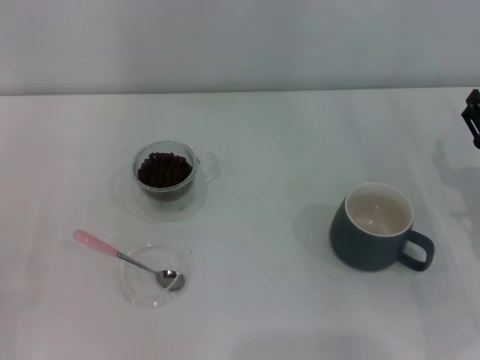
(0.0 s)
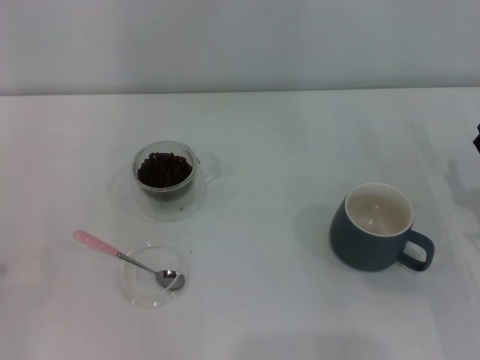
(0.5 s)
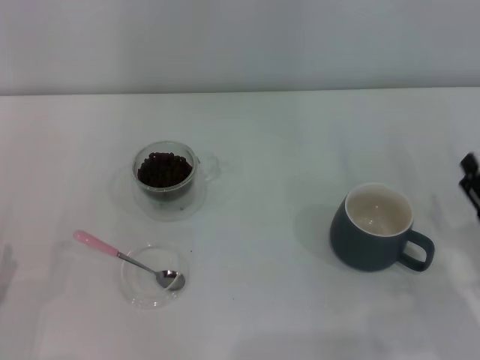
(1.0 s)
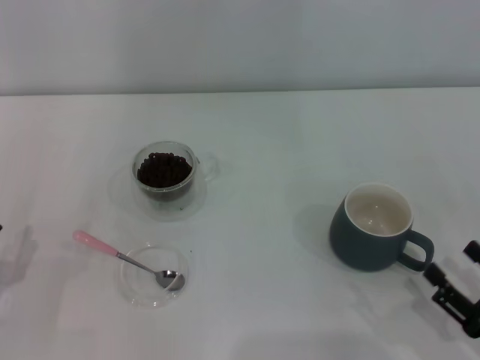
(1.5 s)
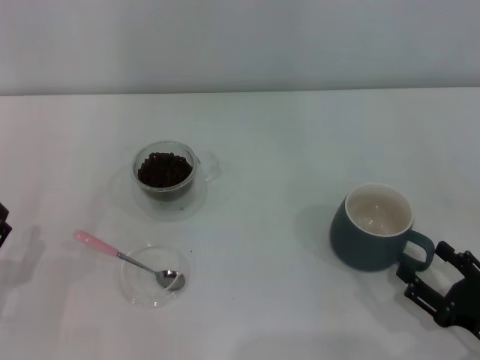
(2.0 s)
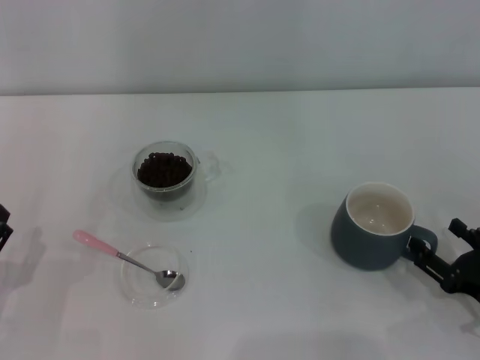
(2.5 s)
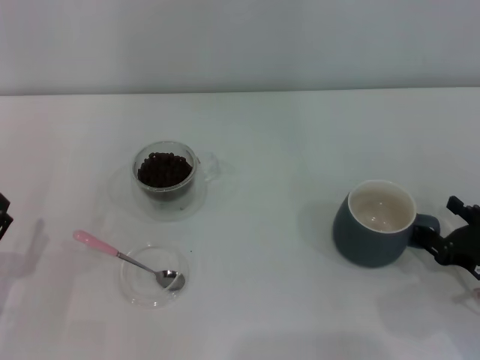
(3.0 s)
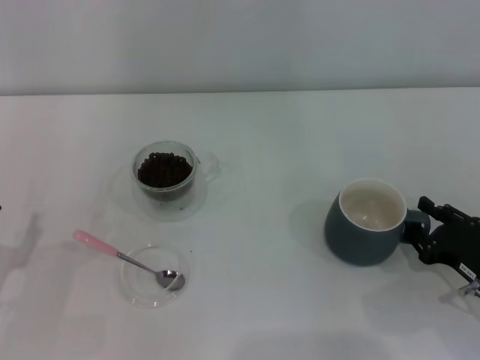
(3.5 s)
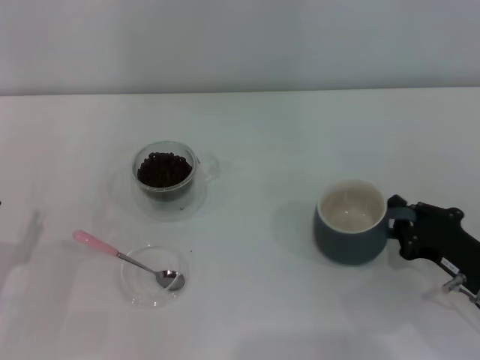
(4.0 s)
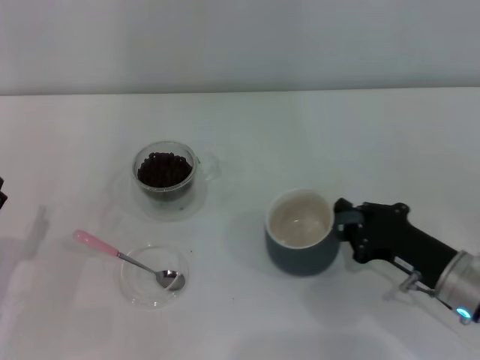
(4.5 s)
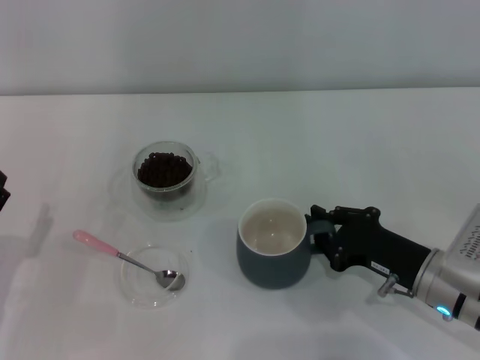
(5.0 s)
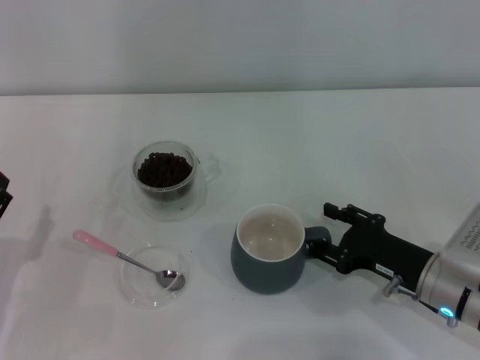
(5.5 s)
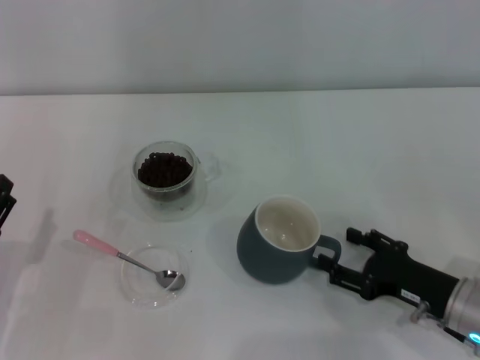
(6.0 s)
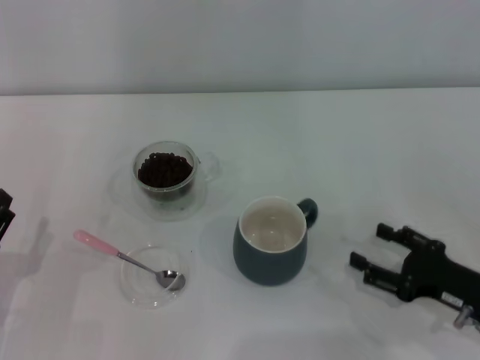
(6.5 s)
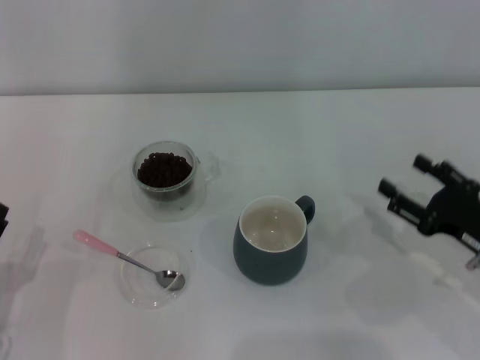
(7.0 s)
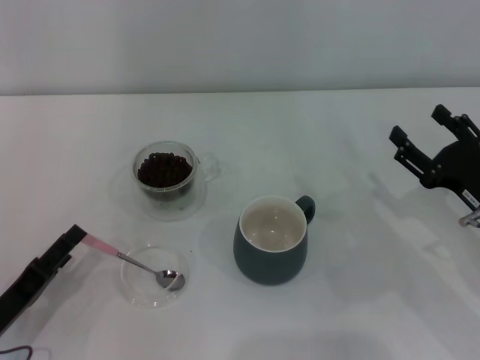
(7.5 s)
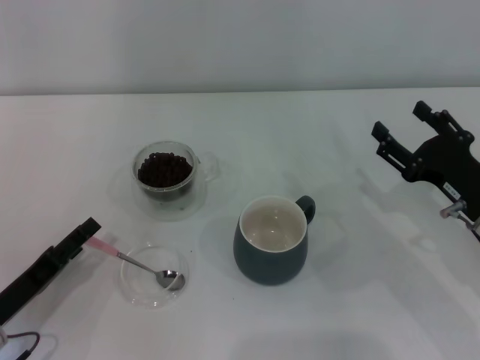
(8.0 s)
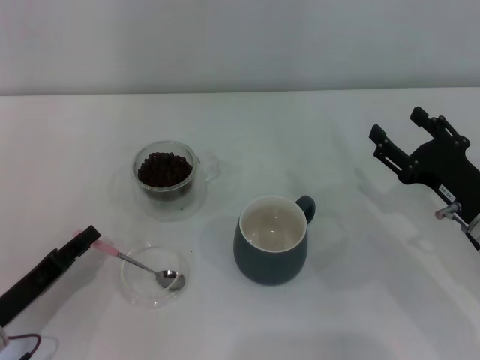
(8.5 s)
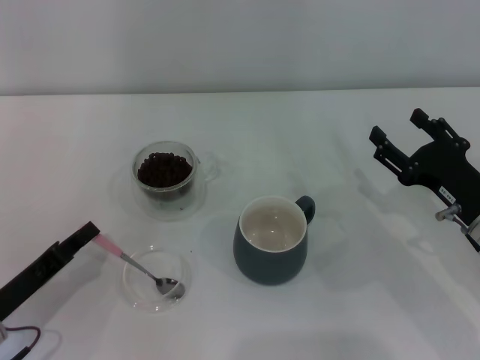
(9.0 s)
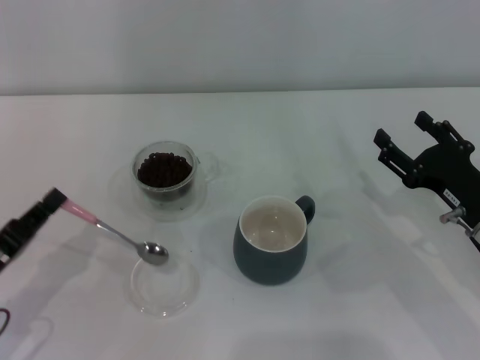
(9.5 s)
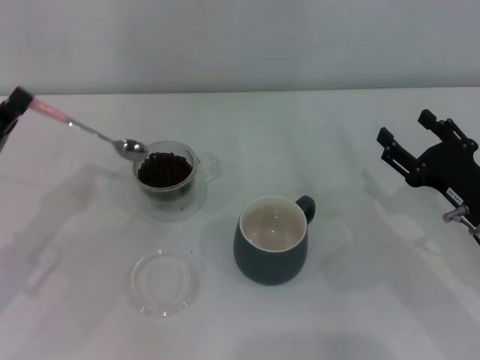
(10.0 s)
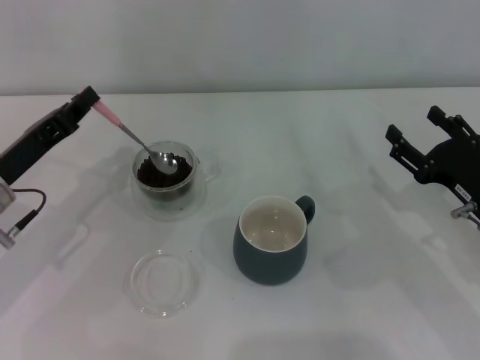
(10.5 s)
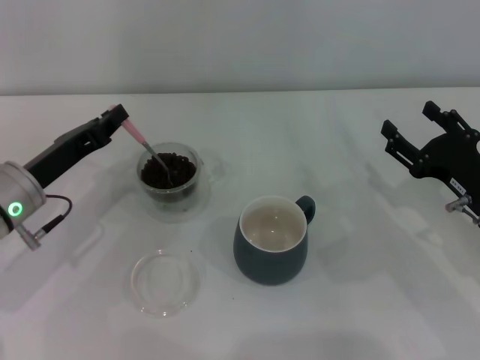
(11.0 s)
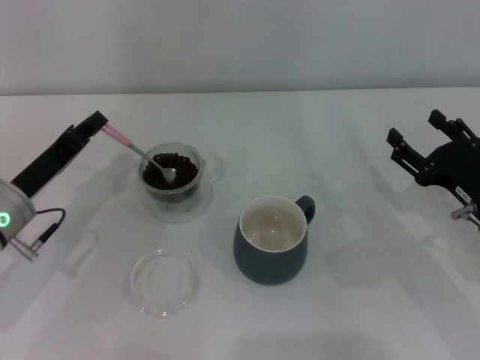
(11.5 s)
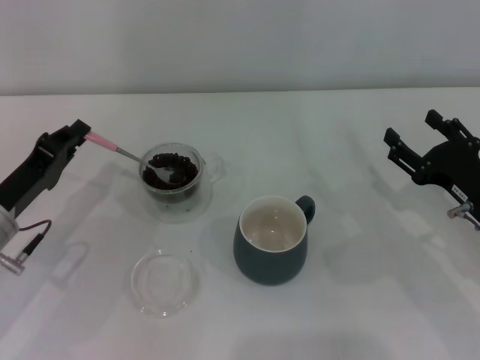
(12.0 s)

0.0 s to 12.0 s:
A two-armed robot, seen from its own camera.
Task of the whole recording: Use a pink spoon to take out the coffee beans from the glass and pour them into the gray cup.
Step, 0.0 to 6.0 s: Move the cup to the center of view with the left gripper.
Step, 6.5 to 9.5 s: Pick up the spoon with the right gripper.
0.0 to 2.0 s: The right gripper travels backward by about 15 cm.
2.0 to 4.0 s: The right gripper goes approximately 10 cm forward, and closes its fingers.
4.0 to 6.0 s: The right gripper opens.
6.0 to 8.0 s: The right gripper shifts by about 5 cm.
8.0 to 10.0 s: The left gripper shifts about 10 cm upward and forward, and closes its fingers.

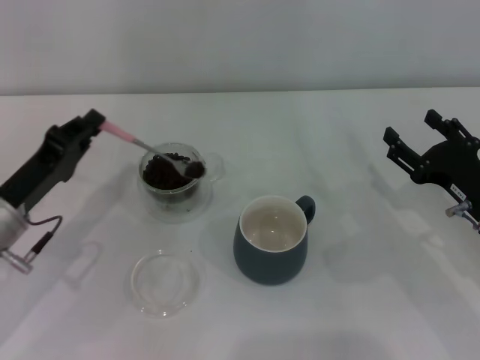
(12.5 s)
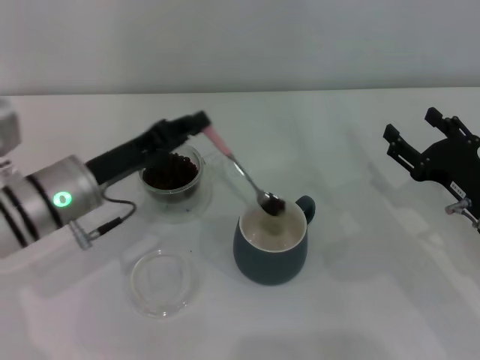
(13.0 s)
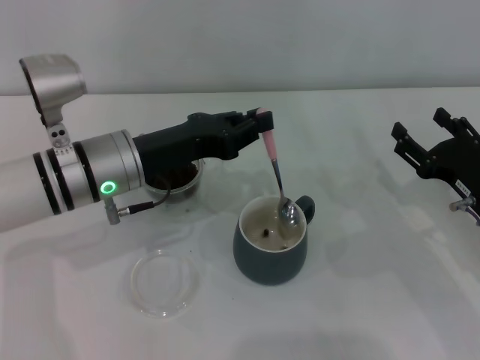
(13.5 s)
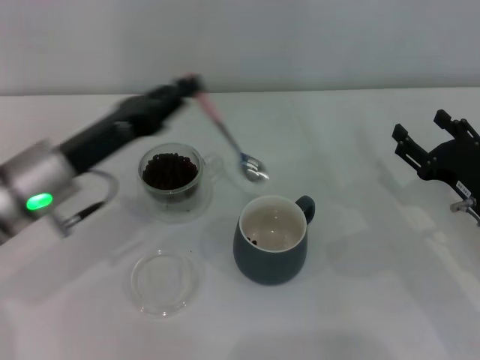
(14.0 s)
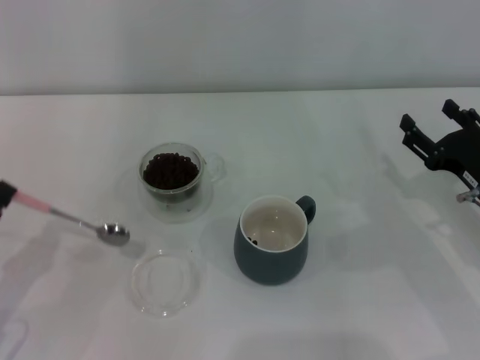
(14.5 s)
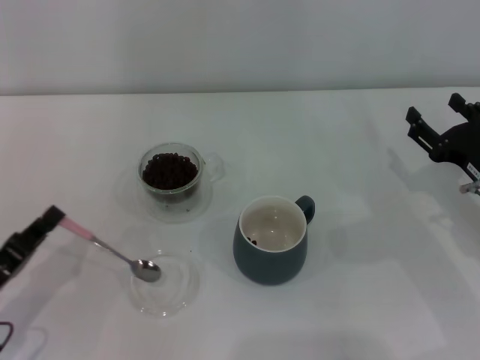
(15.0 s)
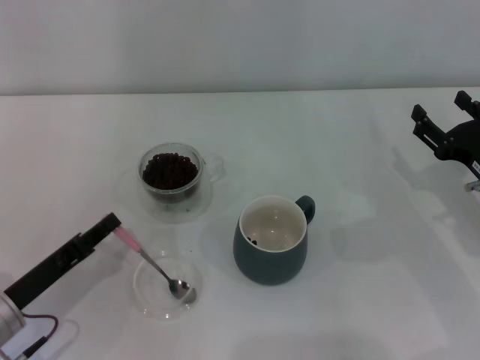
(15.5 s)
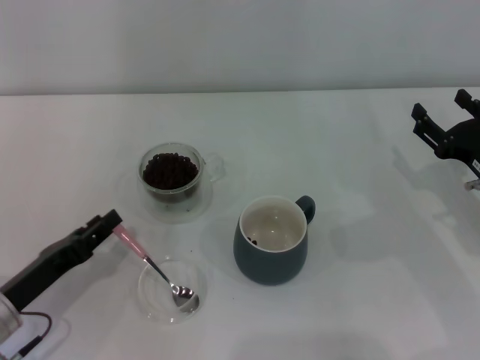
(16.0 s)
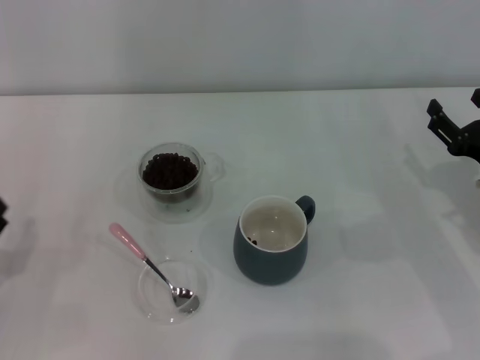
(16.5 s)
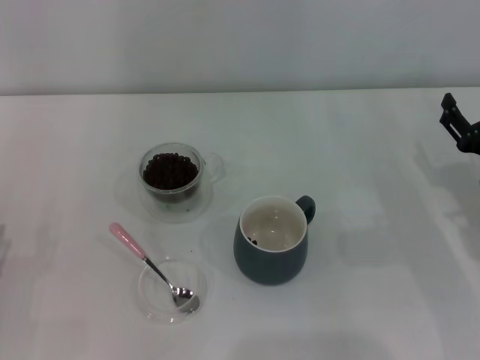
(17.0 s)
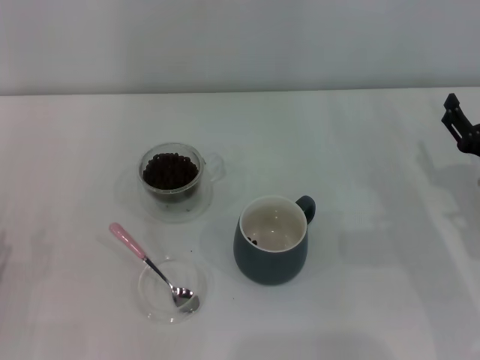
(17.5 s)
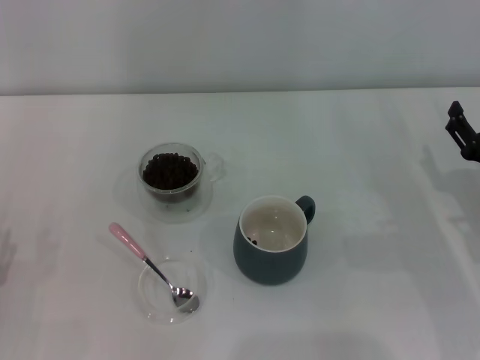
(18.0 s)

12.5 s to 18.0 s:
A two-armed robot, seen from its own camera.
Task of the whole recording: Use a pink spoon to take out the coffee beans from the glass and pour them into the gray cup.
12.5 to 14.5 s: The left gripper moves backward and to the left, roughly 10 cm.
14.5 to 16.0 s: The left gripper ends up approximately 5 cm from where it was.
16.0 to 18.0 s: The left gripper heads to the left, covering about 5 cm, and opens.
